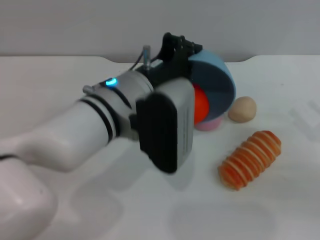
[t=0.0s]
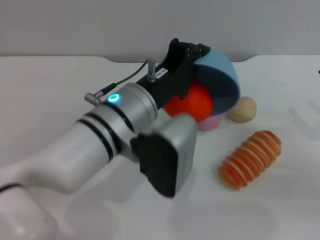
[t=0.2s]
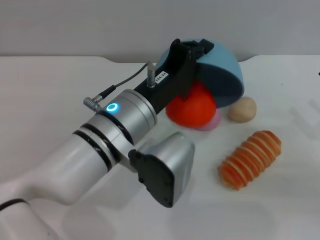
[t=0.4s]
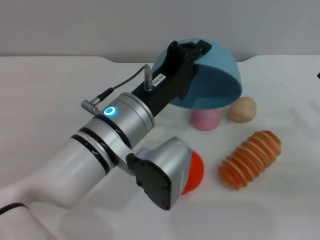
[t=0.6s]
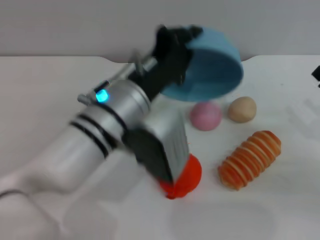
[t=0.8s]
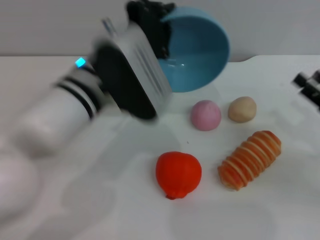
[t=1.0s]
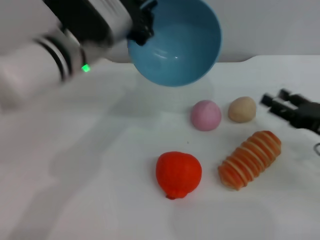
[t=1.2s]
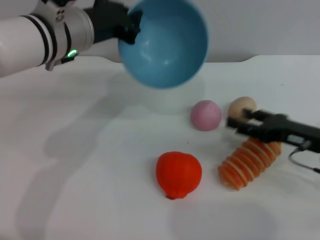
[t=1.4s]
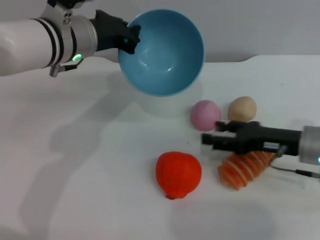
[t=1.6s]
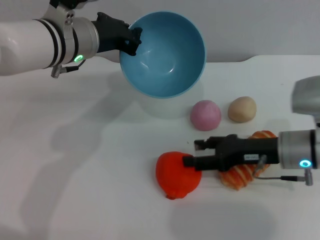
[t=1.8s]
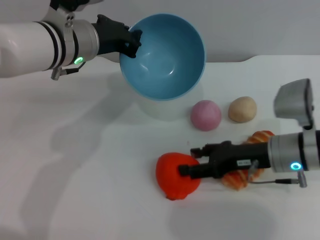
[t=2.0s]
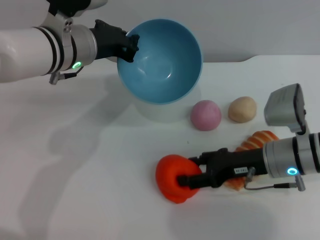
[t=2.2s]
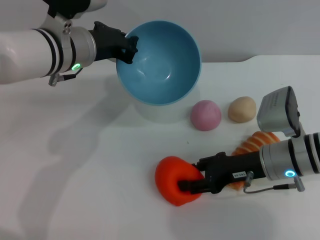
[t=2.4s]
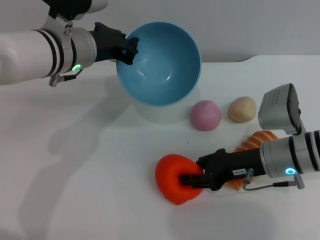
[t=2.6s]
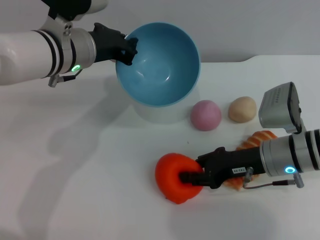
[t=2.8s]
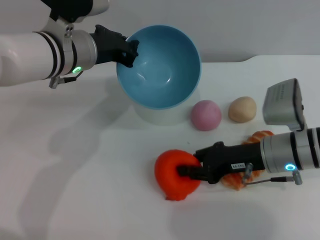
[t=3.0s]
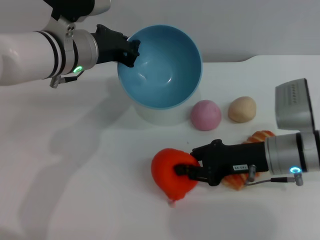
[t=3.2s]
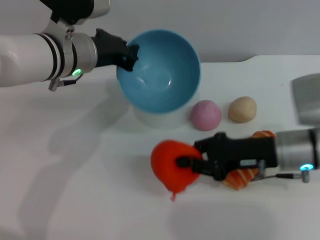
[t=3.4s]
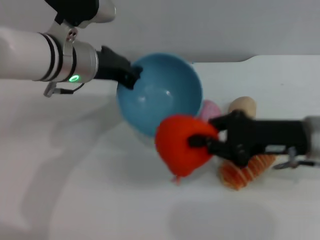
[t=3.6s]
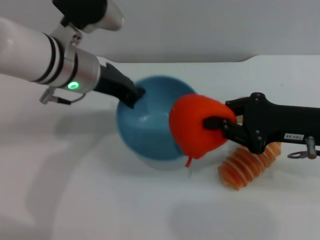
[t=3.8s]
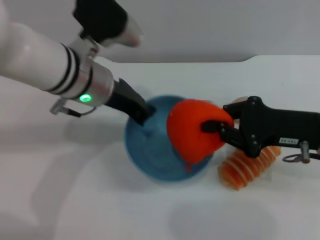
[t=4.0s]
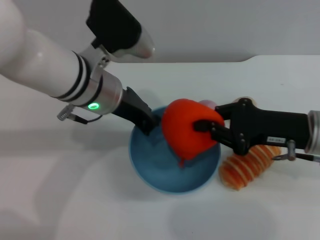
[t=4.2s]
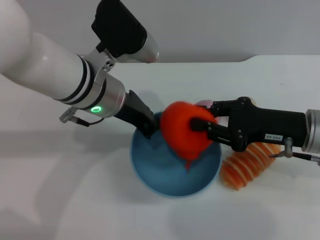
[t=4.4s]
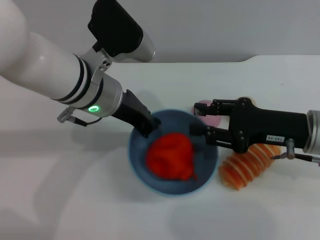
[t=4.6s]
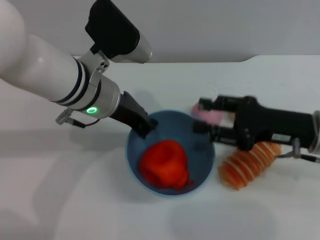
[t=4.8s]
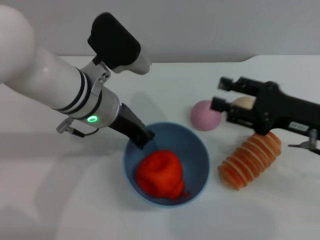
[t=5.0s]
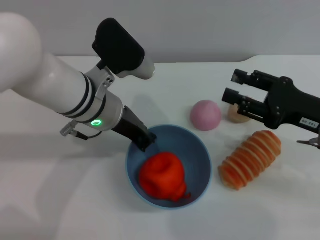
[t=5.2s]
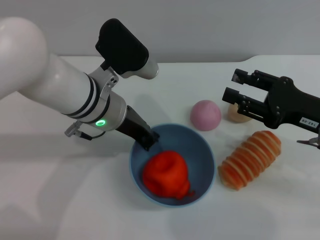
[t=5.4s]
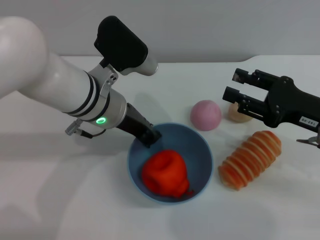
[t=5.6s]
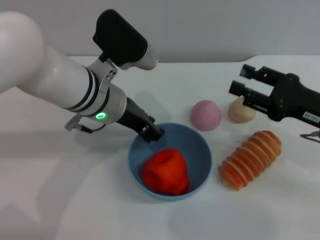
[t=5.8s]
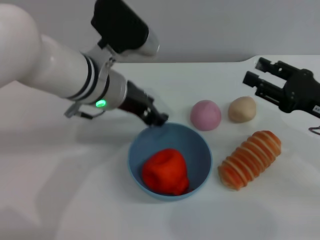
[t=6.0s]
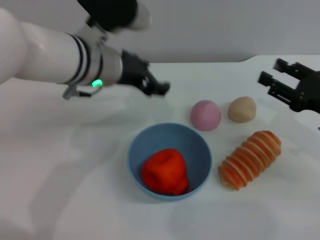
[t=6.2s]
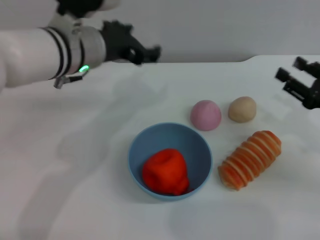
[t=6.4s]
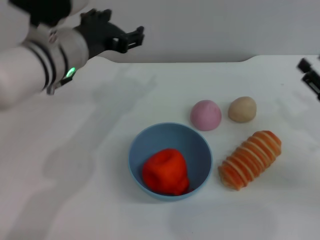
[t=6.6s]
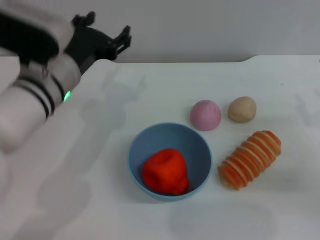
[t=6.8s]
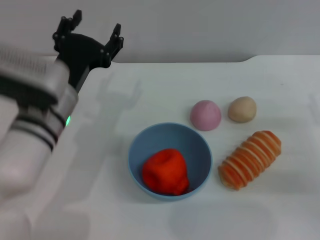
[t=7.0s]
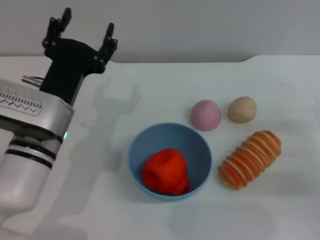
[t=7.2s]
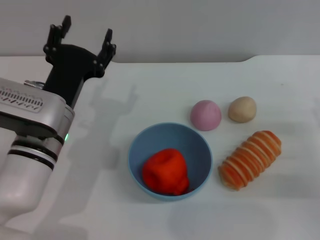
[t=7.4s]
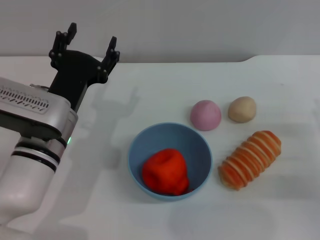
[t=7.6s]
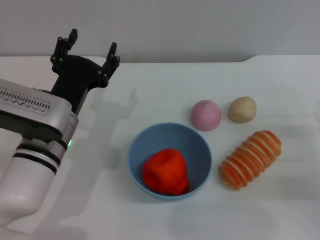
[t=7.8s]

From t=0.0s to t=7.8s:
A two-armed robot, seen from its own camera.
Task of the whole recording: put the orange into the blue bowl and pour it out repeatedly.
Step, from t=1.0s to t=3.0s: Pick up the orange with the right gripper.
Step, from t=3.4s to t=4.8s: Place the orange into the bowl.
Step, from t=5.0s to t=6.8s: Place the bowl on the table.
From t=0.0s to t=1.6s: The left gripper travels forward and to the left by approximately 10 cm. The right gripper shifts some 10 cm to the left and forward.
From t=1.6s to t=3.2s: The right gripper is displaced to the left by approximately 5 cm, and closes up.
From t=3.2s to t=4.6s: The right gripper changes place by about 5 cm. The left gripper ends up approximately 5 cm from where it was.
From t=4.6s to t=6.2s: The right gripper heads to the right, covering approximately 10 cm, and opens up, while the left gripper opens.
From t=6.2s to t=7.8s: The left gripper shifts about 15 cm downward and backward, and opens up, while the right gripper shifts some 5 cm downward.

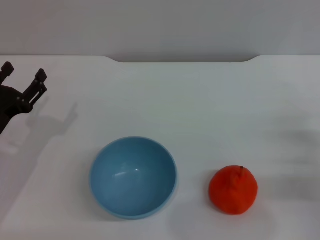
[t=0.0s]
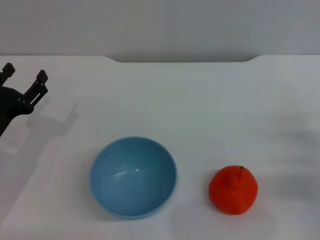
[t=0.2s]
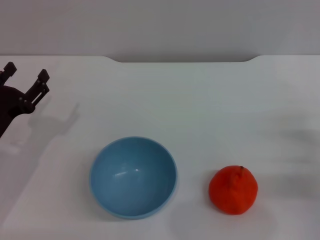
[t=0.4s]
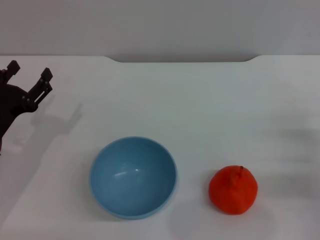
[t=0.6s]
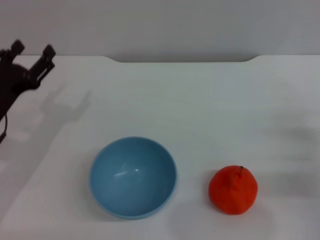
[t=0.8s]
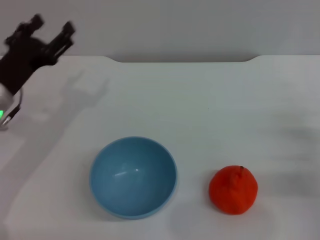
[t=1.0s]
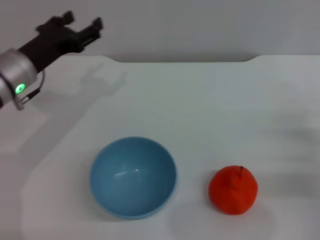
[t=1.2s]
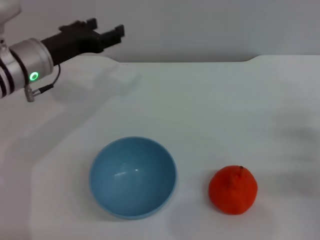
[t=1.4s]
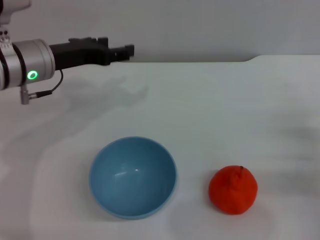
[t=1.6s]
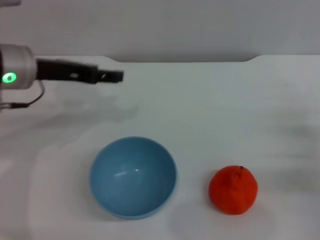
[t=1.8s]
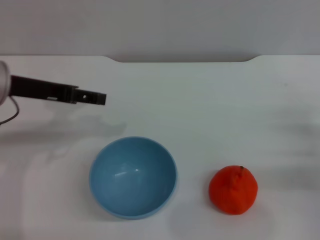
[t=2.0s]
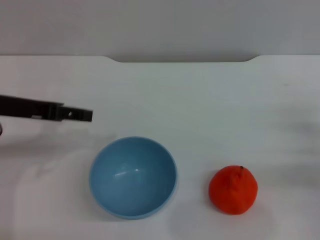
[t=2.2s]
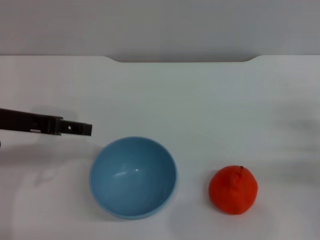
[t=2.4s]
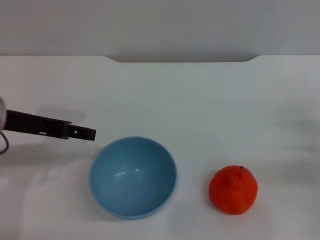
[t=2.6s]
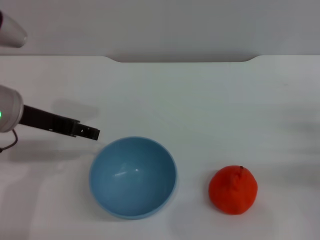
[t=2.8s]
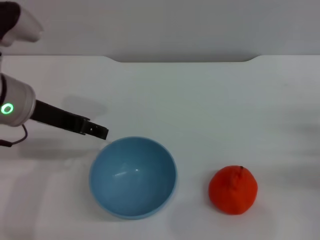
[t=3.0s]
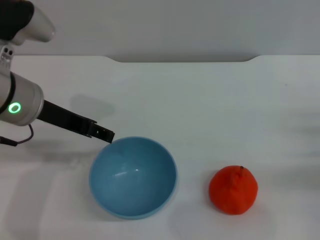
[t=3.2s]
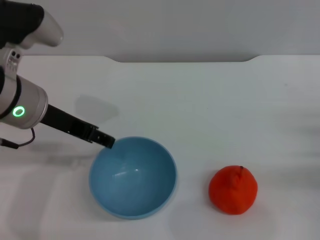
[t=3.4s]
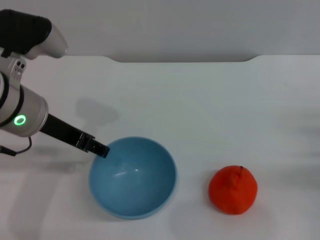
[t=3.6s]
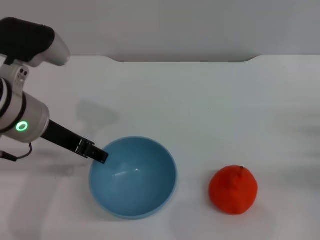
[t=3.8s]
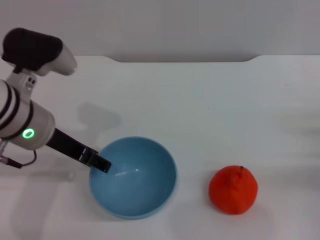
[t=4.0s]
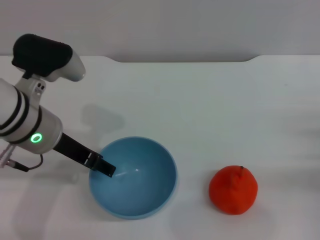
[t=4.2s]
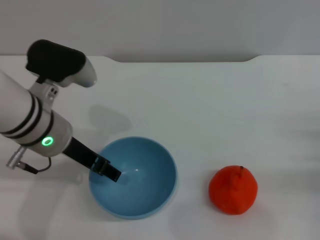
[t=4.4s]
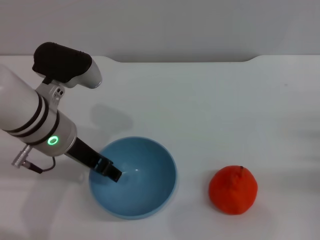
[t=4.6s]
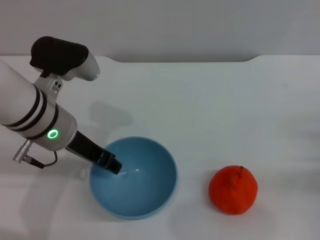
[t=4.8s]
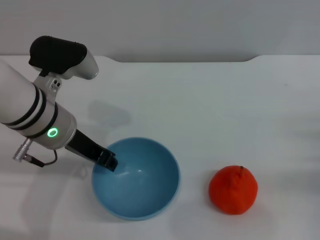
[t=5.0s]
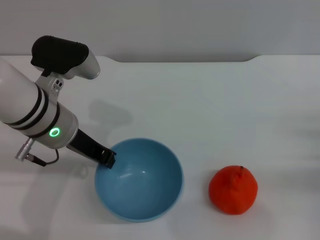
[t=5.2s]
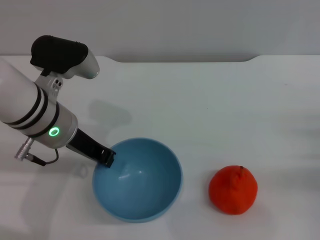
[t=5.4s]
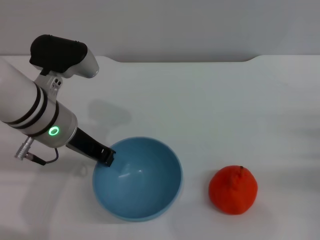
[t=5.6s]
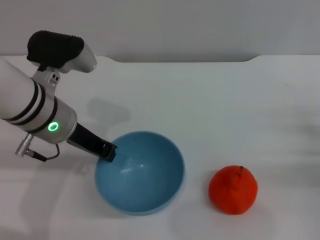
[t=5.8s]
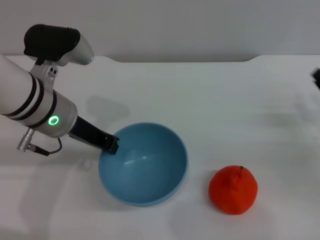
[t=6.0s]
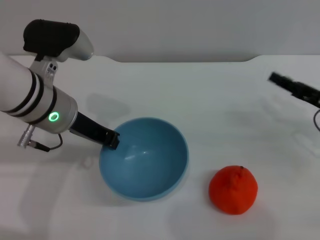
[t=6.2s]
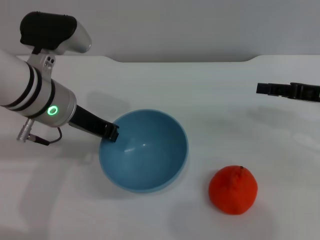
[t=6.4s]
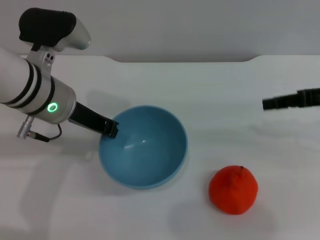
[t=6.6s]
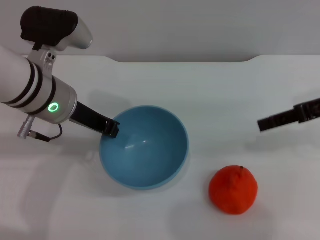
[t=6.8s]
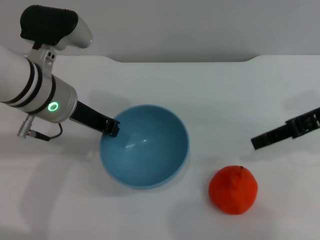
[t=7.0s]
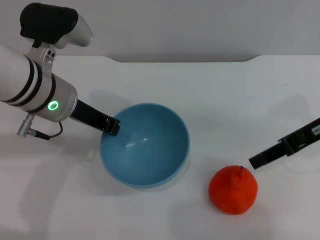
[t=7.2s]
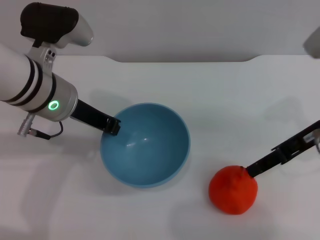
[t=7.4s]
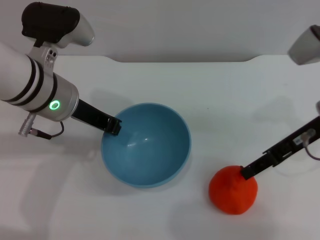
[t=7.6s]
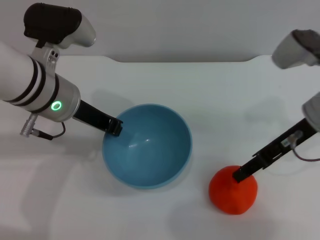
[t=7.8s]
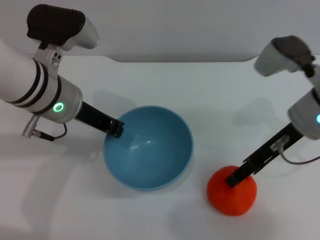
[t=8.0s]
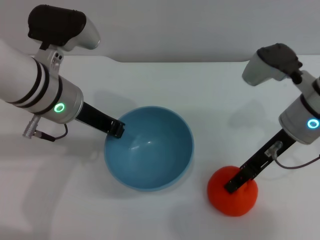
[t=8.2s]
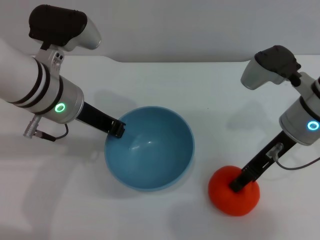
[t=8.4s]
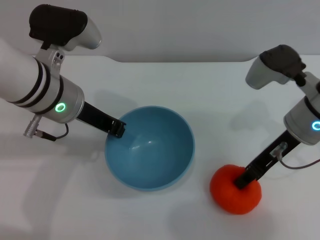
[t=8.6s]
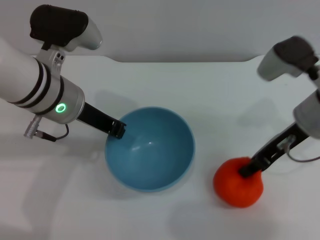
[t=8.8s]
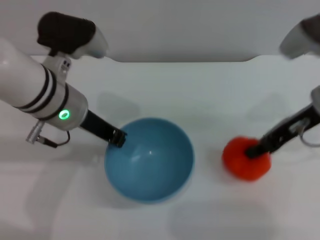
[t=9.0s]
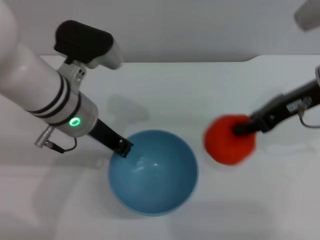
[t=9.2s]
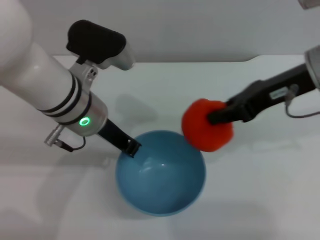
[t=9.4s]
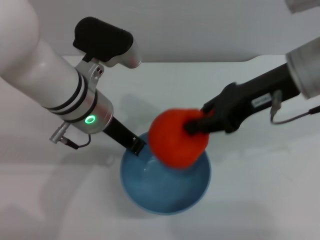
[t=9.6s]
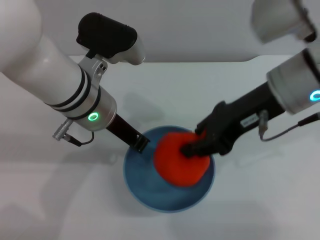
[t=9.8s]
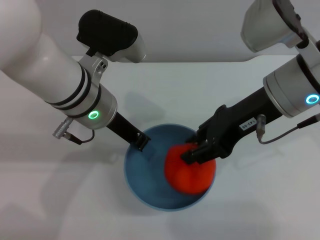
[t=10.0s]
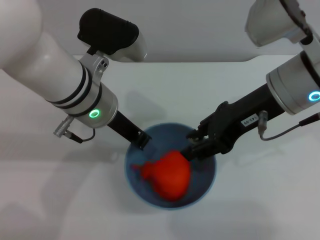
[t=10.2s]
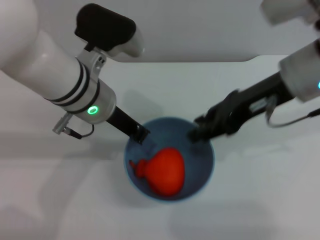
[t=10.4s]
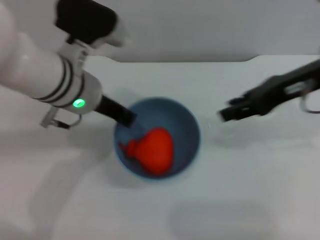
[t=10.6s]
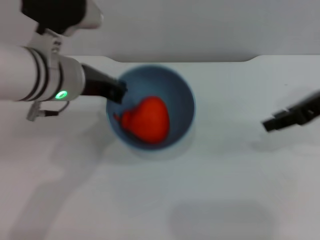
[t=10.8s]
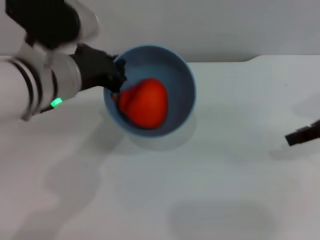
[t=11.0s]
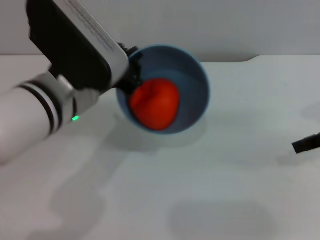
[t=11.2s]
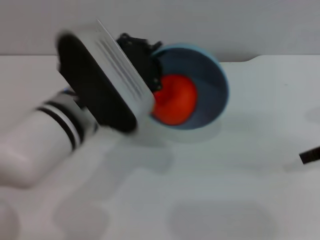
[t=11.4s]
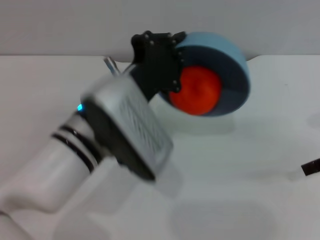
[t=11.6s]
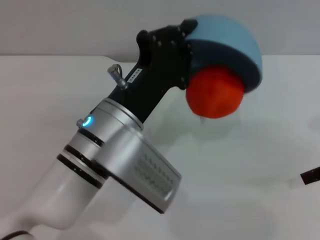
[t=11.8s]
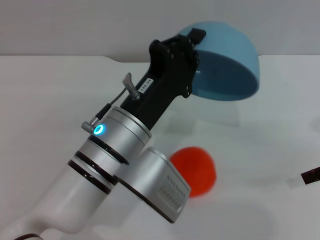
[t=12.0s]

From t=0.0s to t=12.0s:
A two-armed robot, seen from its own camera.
Task of the whole recording: put the orange into the blue bowl and pour it out repeatedly.
Step, from t=0.0s to t=6.8s: Pick up the bowl with the left gripper.
Step, from t=7.0s to t=9.2s: Pick up the orange with the right gripper.
Step, from t=9.4s to t=10.2s: Place the orange into the bowl.
From t=0.0s to t=1.6s: The left gripper is displaced upward, forward and to the right by approximately 20 cm.
From t=1.6s to t=3.0s: The left gripper heads backward, covering roughly 5 cm.
From t=3.0s to t=4.4s: The left gripper ends up some 5 cm from where it was.
From t=4.4s to t=6.0s: The left gripper closes its fingers.
From t=6.0s to t=7.6s: The right gripper moves upward and to the left, roughly 15 cm.
From t=7.6s to t=9.0s: The right gripper closes up.
From t=9.0s to t=10.4s: The right gripper shifts approximately 5 cm to the left, and opens.
From t=10.4s to t=12.0s: The right gripper goes roughly 15 cm to the right; the left gripper travels backward and downward by roughly 10 cm.

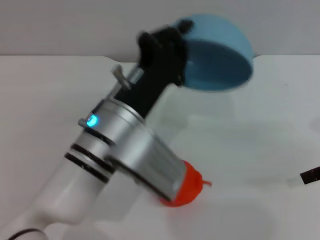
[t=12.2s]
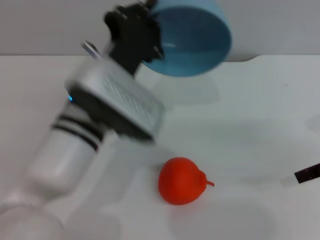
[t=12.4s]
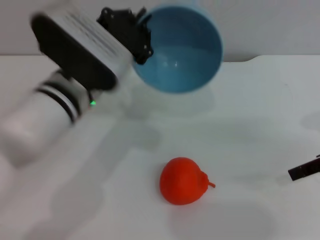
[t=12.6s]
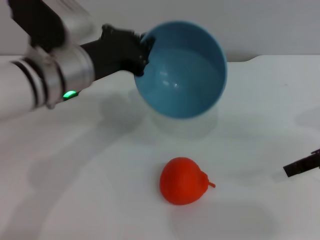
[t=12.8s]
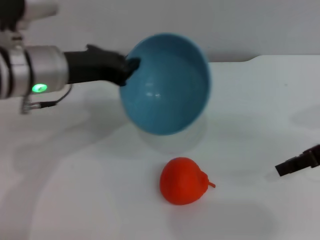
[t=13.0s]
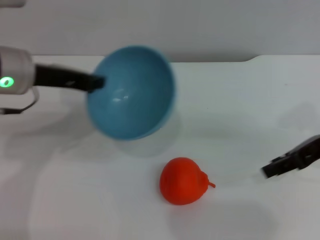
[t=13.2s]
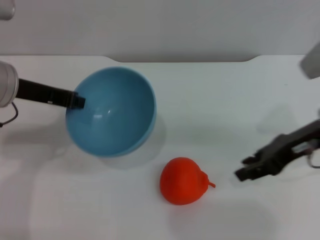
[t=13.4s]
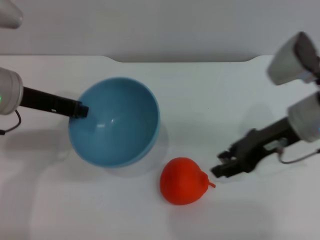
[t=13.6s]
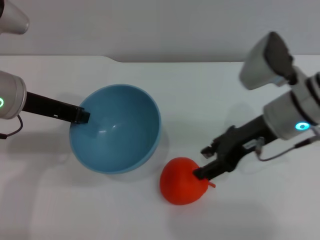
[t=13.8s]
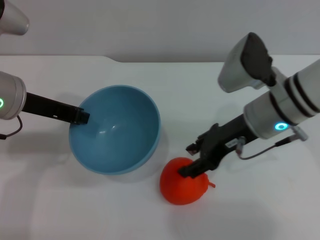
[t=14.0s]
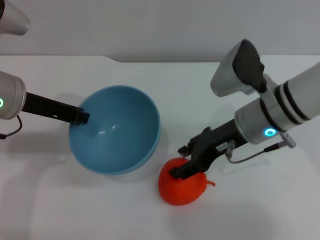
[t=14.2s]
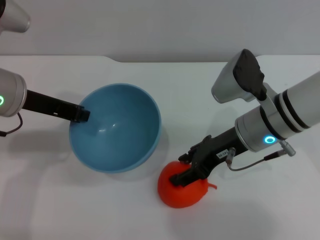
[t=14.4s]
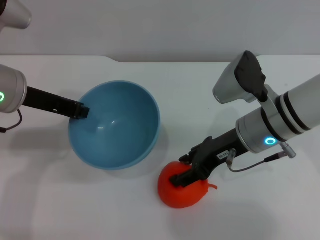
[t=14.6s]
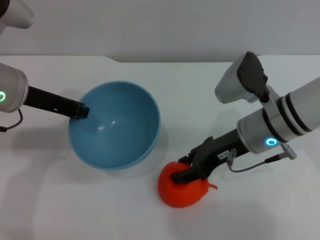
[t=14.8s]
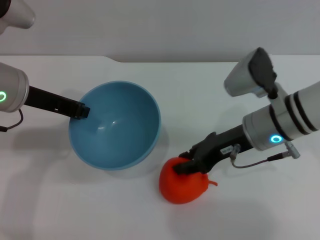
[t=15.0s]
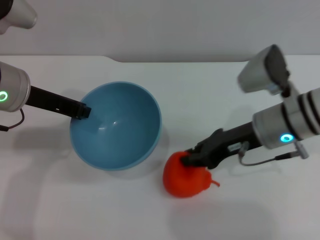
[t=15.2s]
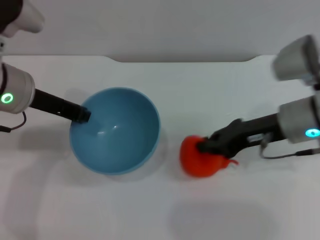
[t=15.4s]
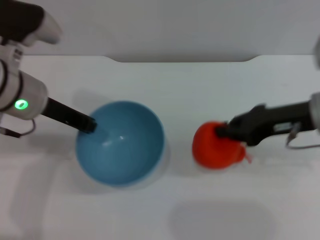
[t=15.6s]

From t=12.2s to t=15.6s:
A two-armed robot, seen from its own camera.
Task of the whole recording: put the orange into the blue bowl and pour it out repeatedly.
From t=12.2s to t=13.8s: The right gripper shifts roughly 15 cm to the left; the left gripper goes about 15 cm to the left, upward and forward.
From t=13.8s to t=15.6s: The right gripper heads to the right, covering about 5 cm, and closes up.
